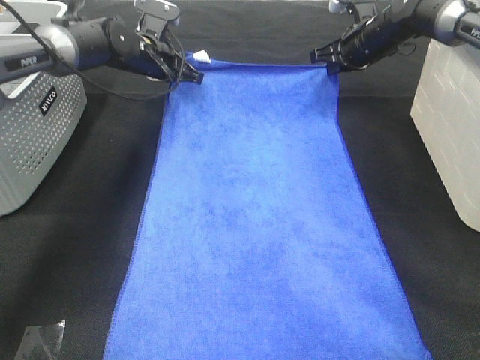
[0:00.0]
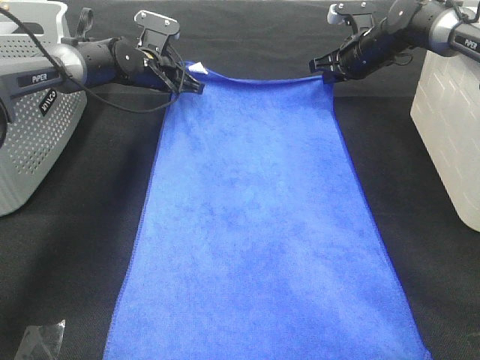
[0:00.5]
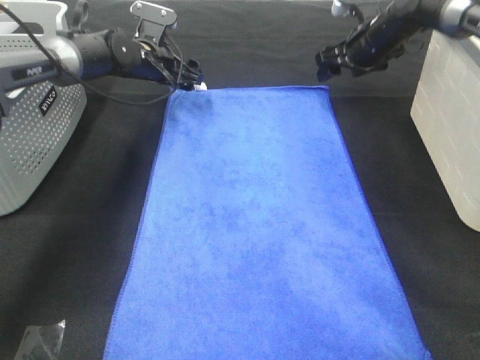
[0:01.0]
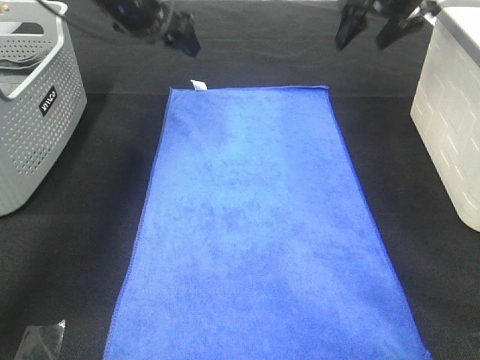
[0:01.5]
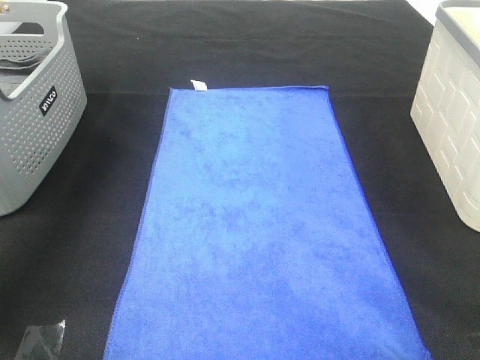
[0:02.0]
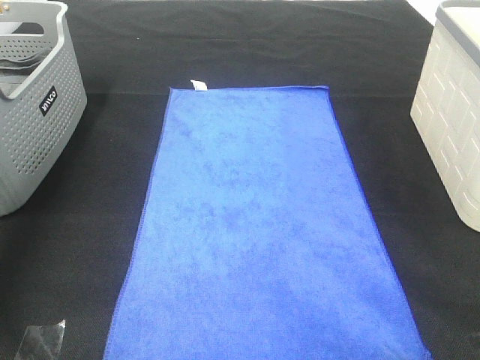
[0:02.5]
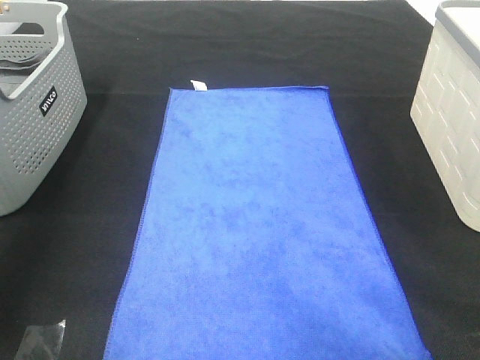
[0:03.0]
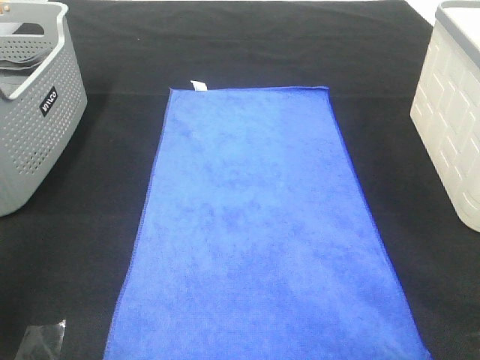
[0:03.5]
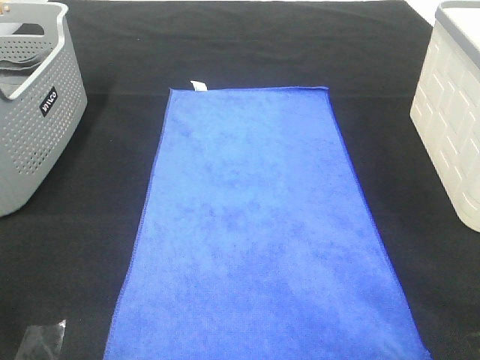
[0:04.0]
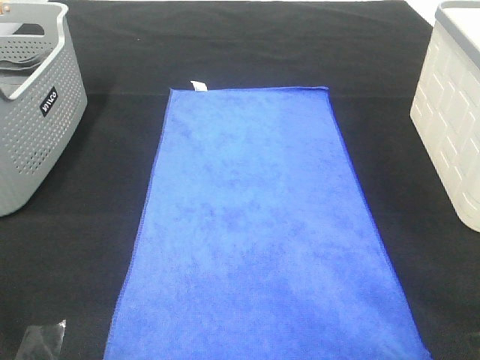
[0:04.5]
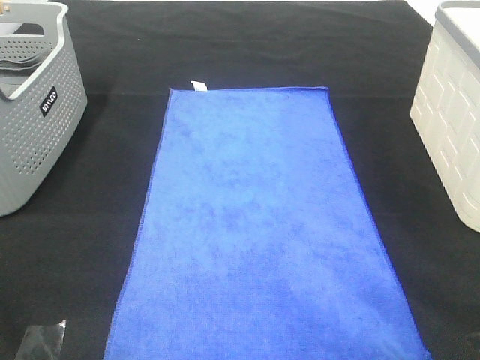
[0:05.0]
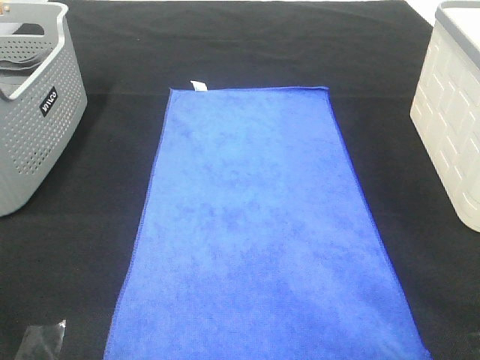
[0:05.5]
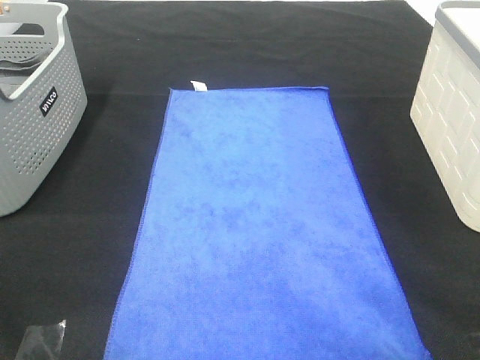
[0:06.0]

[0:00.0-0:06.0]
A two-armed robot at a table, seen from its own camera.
Task of the whole recording: Remove the towel and place it.
0:00.0 to 0:02.0: The right gripper heads upward and backward, covering roughly 35 cm, and opens its fingers; the left gripper goes some 30 cm upward, to the left and backward, and opens its fingers.
0:02.0 to 0:04.0: Both grippers travel together backward, roughly 40 cm.

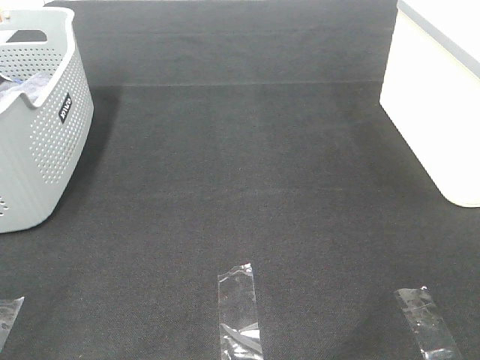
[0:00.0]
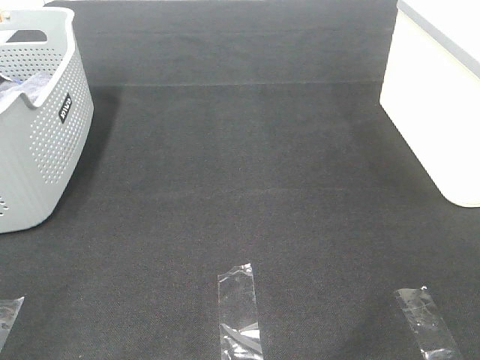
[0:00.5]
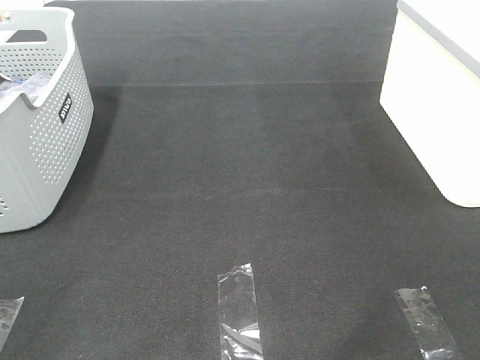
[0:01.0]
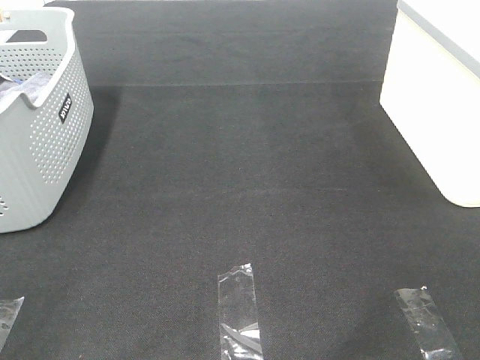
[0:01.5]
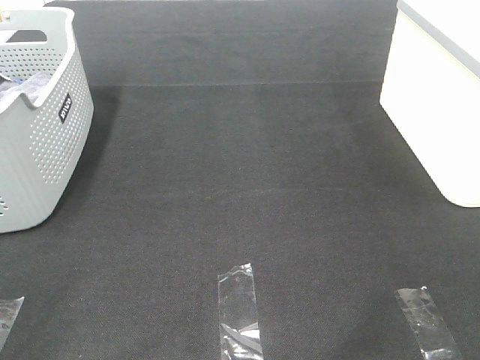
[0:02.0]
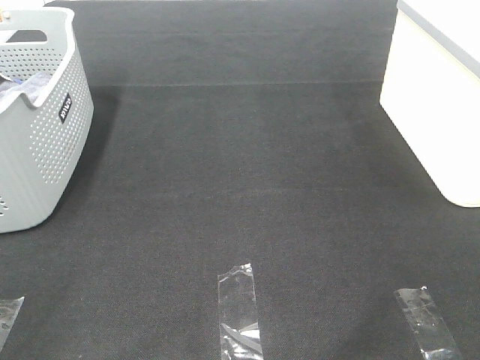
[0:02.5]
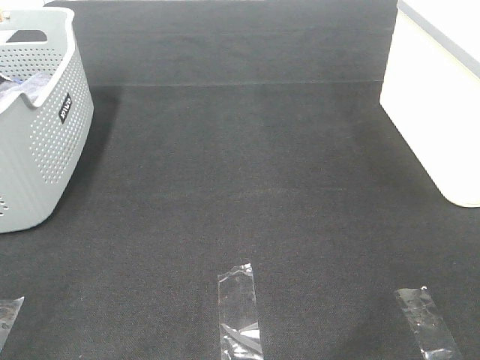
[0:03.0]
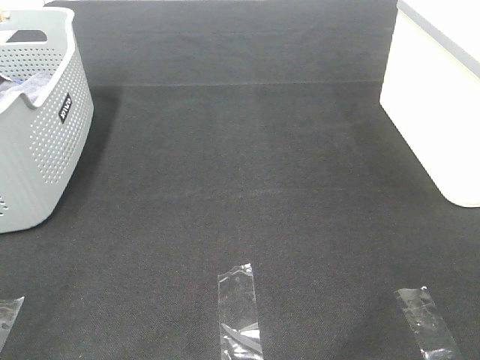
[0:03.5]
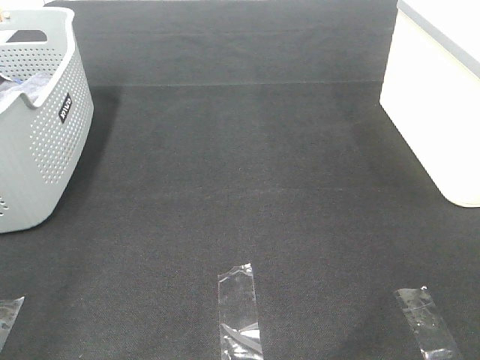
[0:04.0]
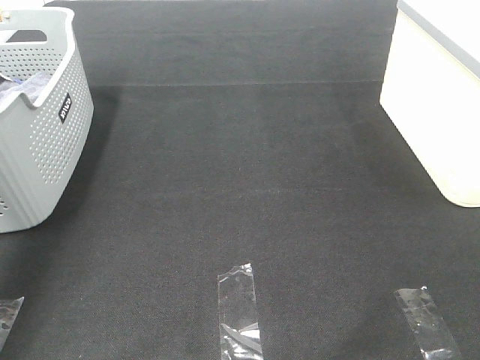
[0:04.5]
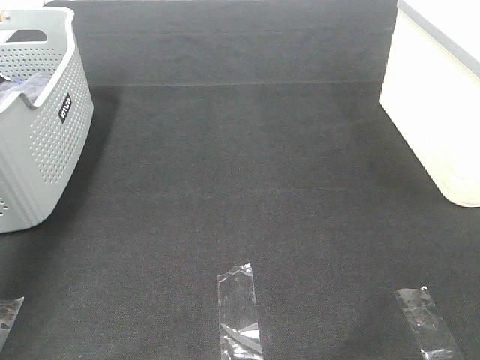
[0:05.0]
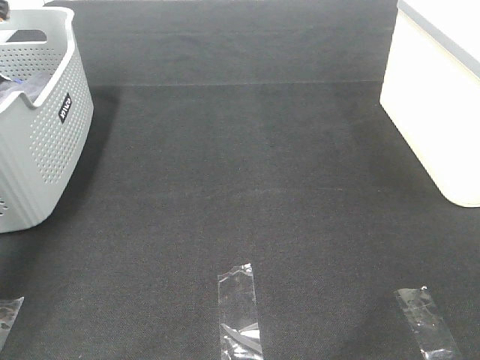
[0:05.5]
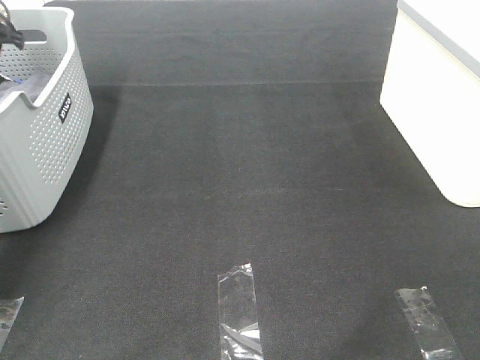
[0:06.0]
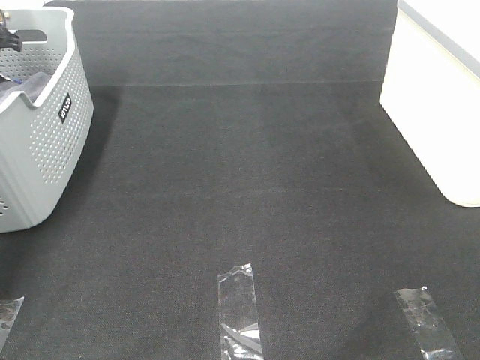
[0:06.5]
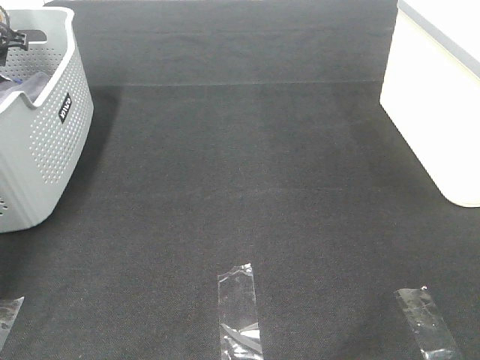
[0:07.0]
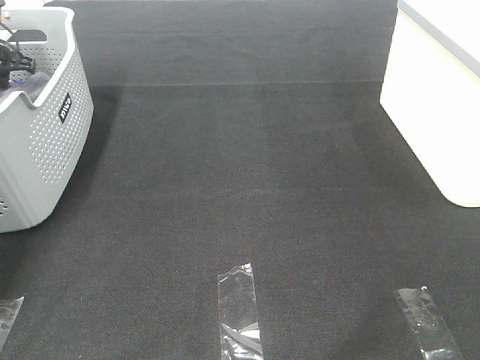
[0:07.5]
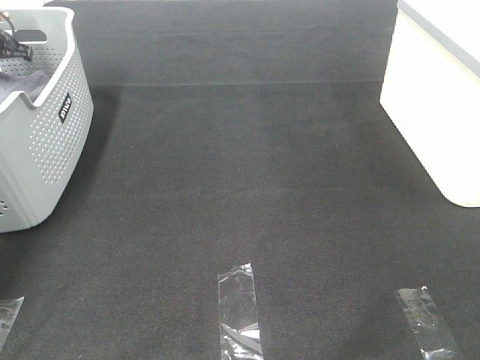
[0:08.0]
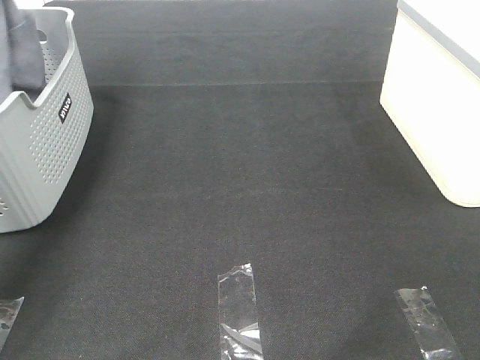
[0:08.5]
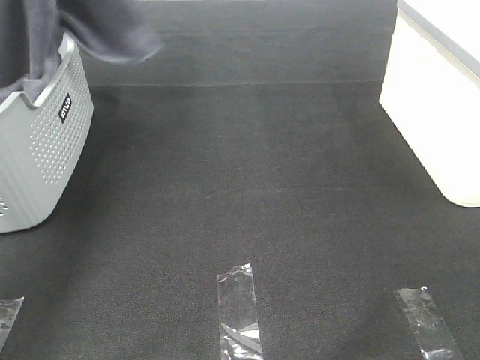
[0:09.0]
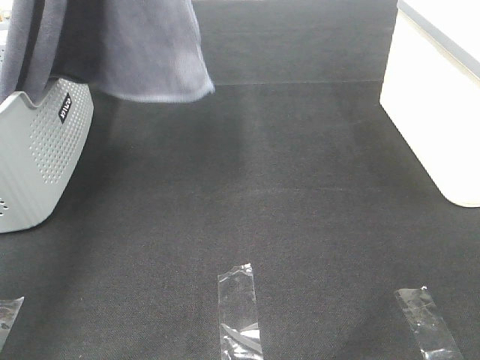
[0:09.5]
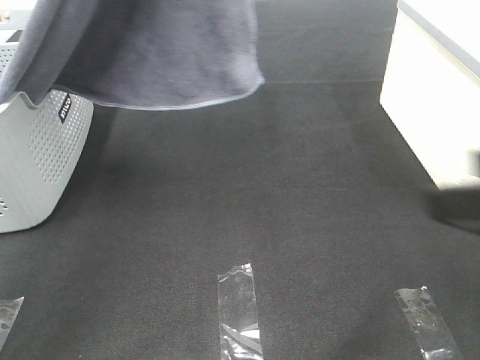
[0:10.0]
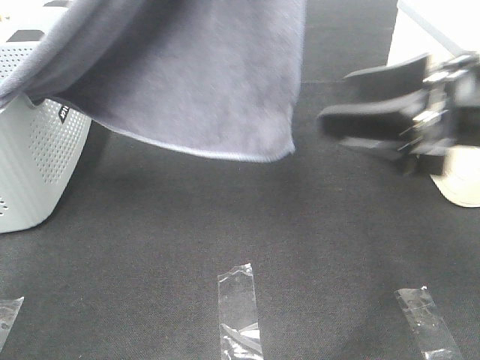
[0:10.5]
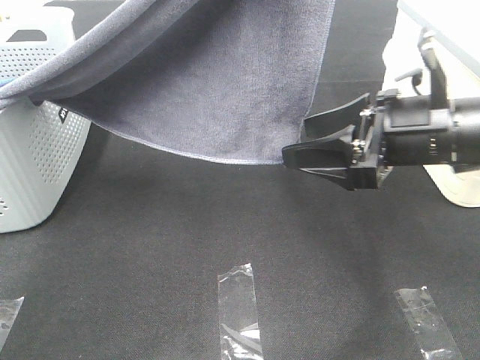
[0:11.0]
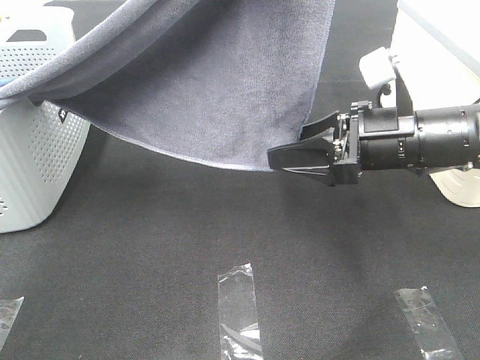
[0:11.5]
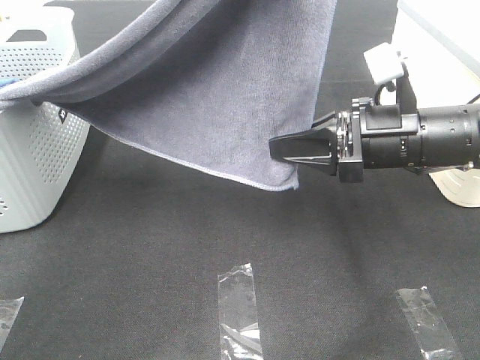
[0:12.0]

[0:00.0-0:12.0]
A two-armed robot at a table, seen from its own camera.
Task of the whole recording: Remove the towel and place it.
Step, 0:08.5 to 0:11.0: Right hand: grab a corner of the grey towel and straighten it.
0:00.0 to 0:02.0: The two grippers keep their place.
0:04.0 to 0:06.0: The left gripper shifts about 50 cm forward.
0:06.0 to 0:08.0: The left gripper closes up.
0:08.0 to 0:10.0: The right gripper shifts approximately 15 cm forward; the left gripper is displaced upward, to the right and backward by approximately 40 cm.
0:10.0 to 0:12.0: The left gripper shifts roughly 10 cm to the right. The right gripper goes some 20 cm forward, downward and to the left, and closes.

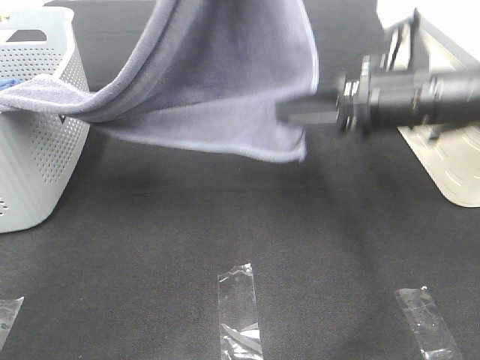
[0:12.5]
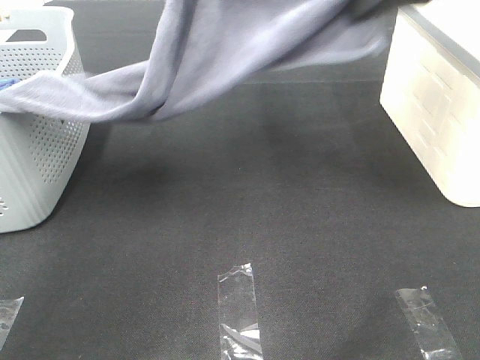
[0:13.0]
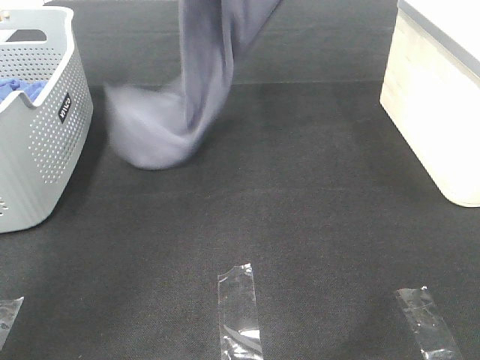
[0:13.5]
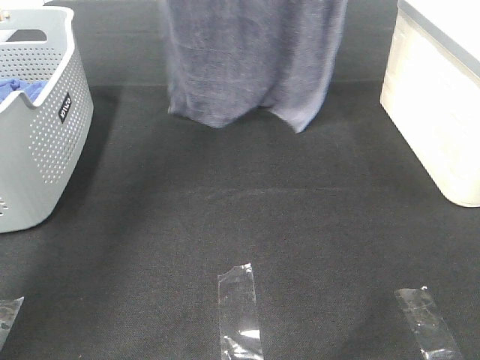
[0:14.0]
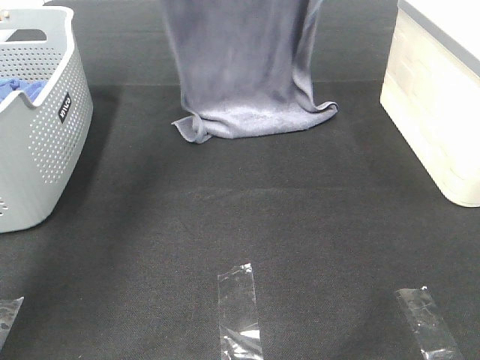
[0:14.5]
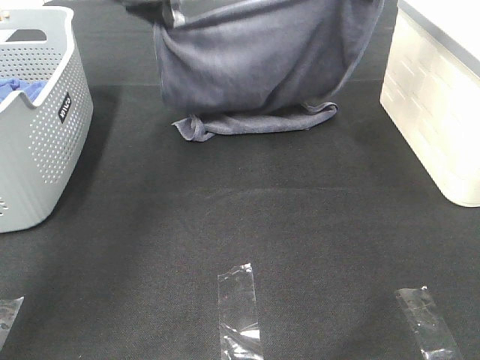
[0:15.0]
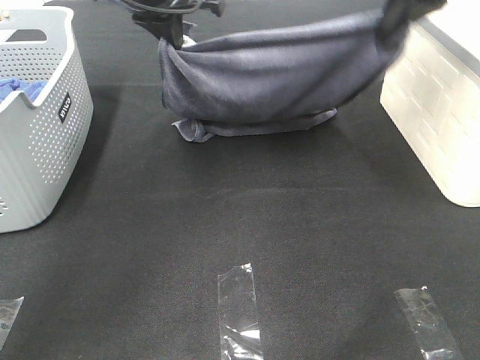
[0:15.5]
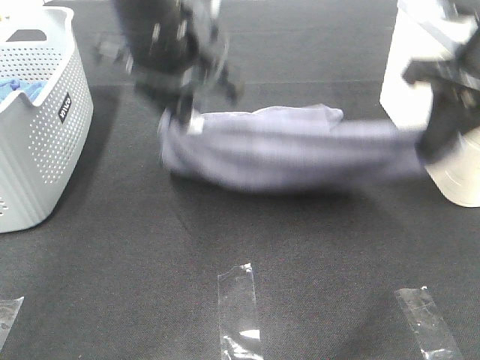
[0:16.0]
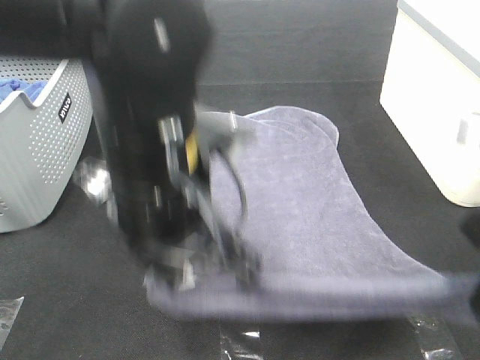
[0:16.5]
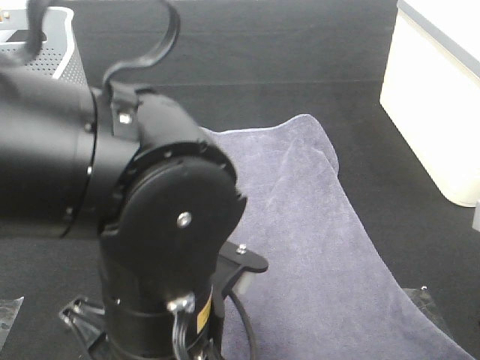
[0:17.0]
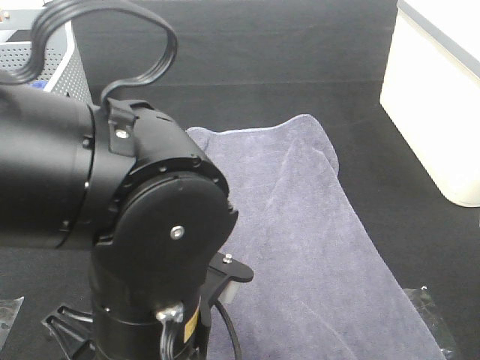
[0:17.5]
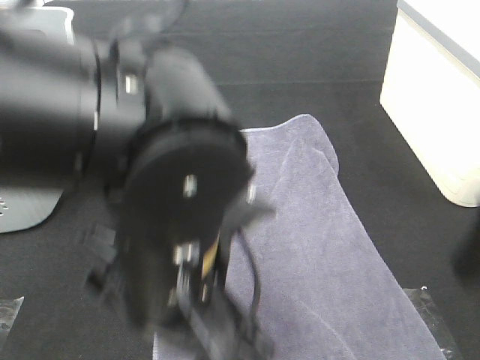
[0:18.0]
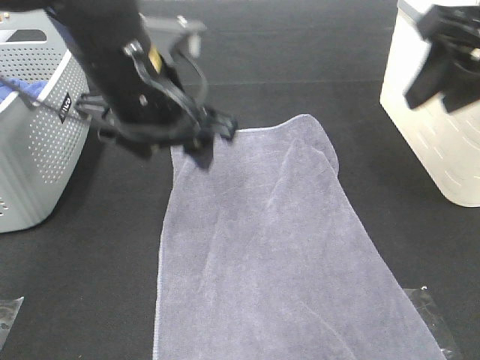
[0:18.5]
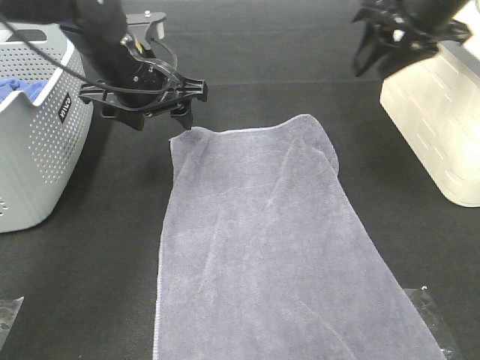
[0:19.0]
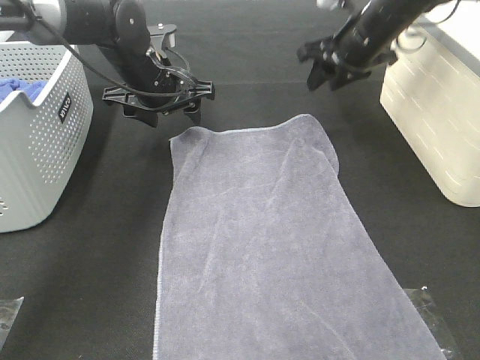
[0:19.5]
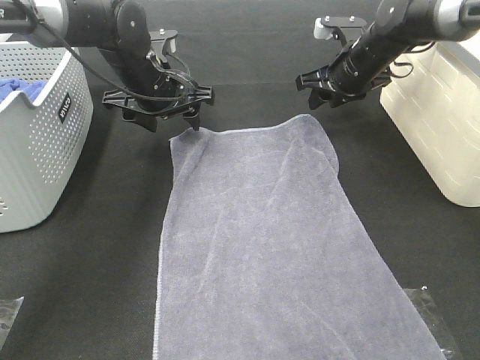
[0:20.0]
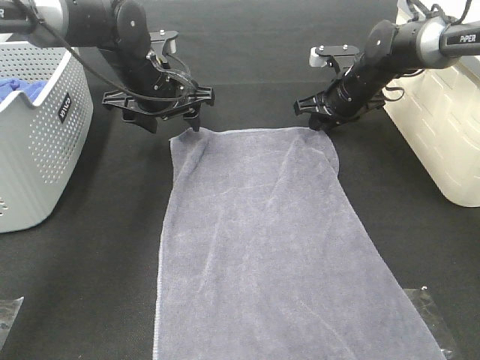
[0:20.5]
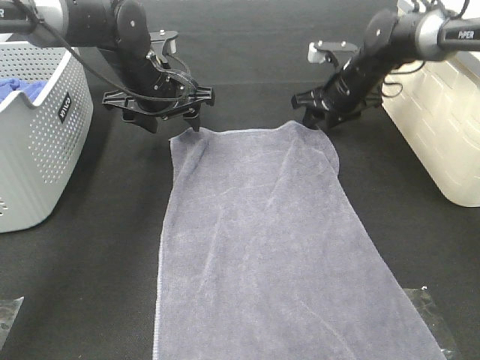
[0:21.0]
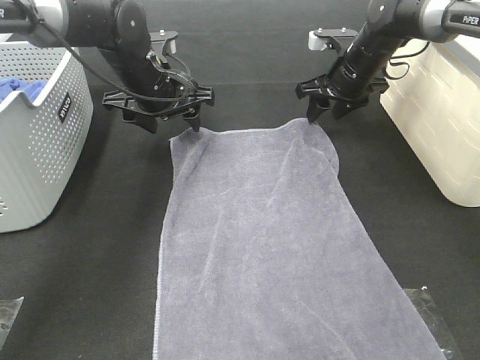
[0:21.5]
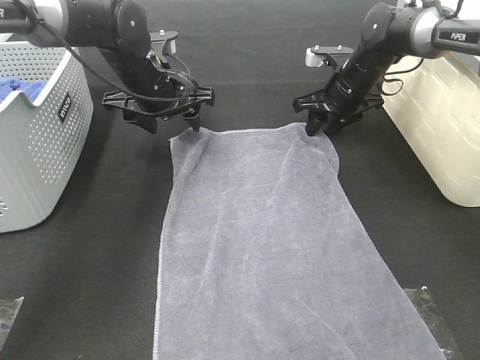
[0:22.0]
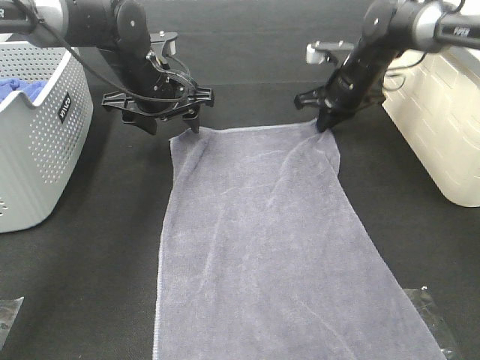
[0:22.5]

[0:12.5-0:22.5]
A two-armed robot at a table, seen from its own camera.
Task of the whole recording: Remove the towel and place it.
Step, 0:14.5 to 0:21.0: Left hand:adjust the gray towel.
Step, 0:14.5 to 0:21.0: Right hand:adjust the gray towel.
0:12.5 to 0:14.5: The right gripper heads upward and forward, covering approximately 25 cm. The left gripper shifts approximately 20 cm forward, downward and to the left.
0:14.5 to 0:16.5: The left gripper goes approximately 35 cm backward. Meanwhile the right gripper shifts about 35 cm backward and downward.
0:16.5 to 0:18.5: The right gripper shifts approximately 15 cm forward and upward, and opens; the left gripper goes roughly 10 cm forward, and opens its fingers.
0:18.5 to 0:20.5: The right gripper is displaced forward and downward by approximately 30 cm. Meanwhile the left gripper travels forward and downward by roughly 20 cm.
0:20.5 to 0:22.5: The right gripper closes up.
